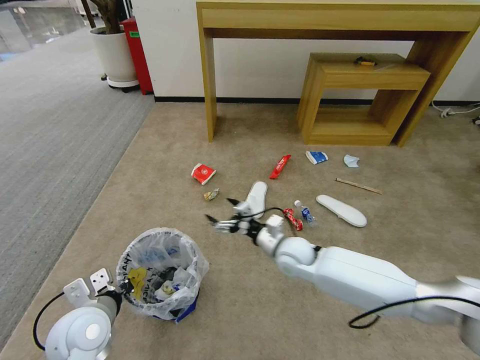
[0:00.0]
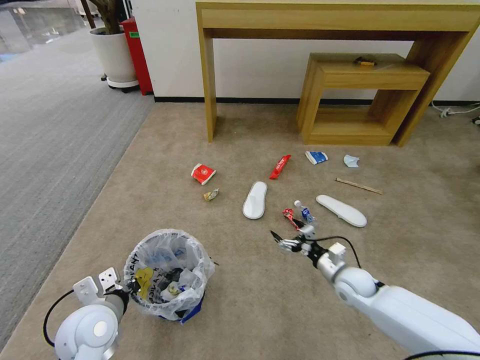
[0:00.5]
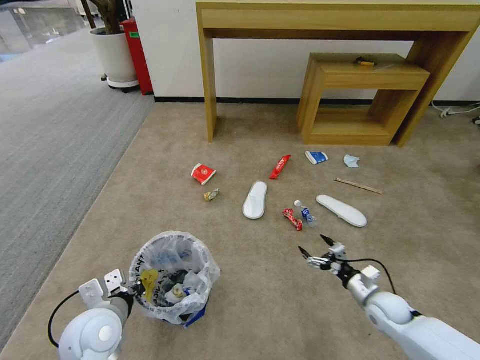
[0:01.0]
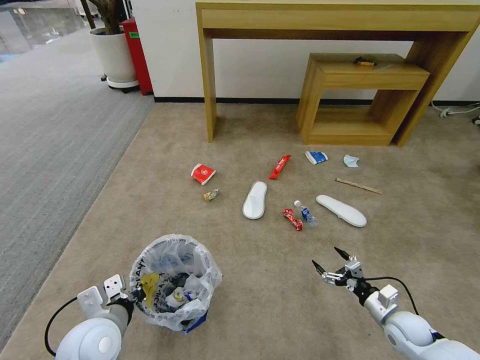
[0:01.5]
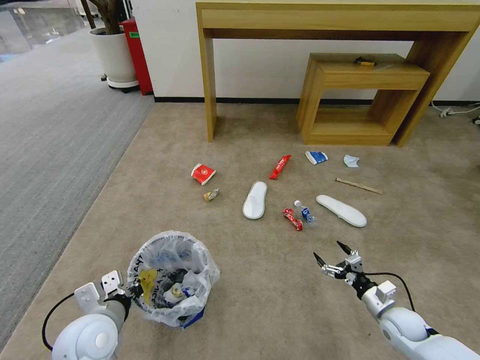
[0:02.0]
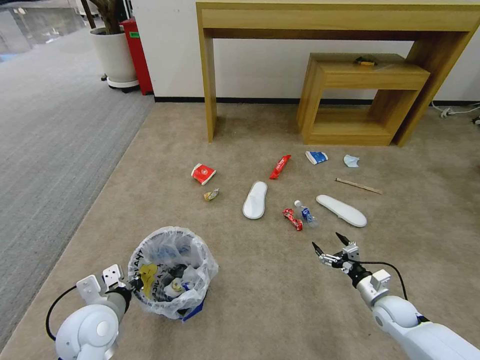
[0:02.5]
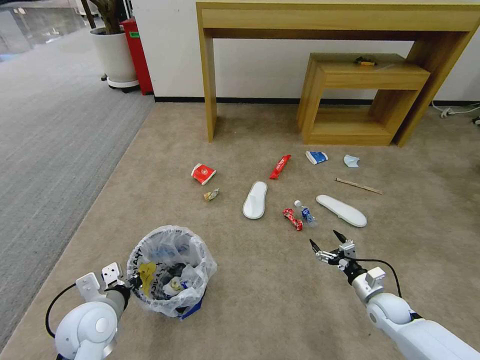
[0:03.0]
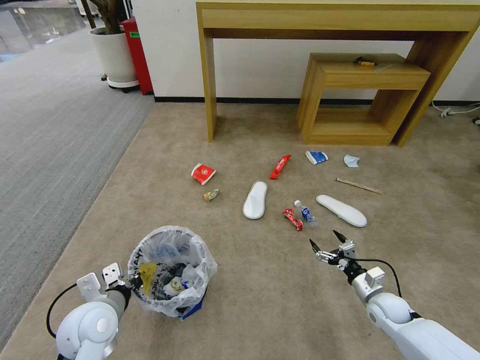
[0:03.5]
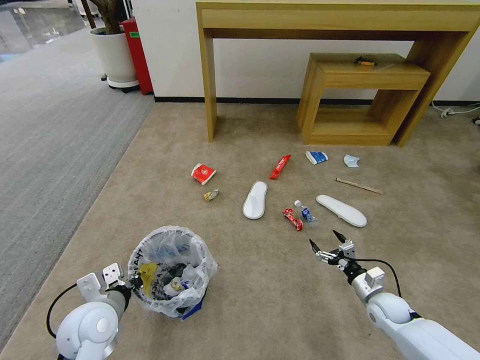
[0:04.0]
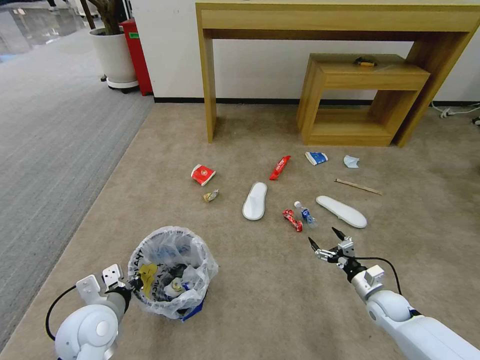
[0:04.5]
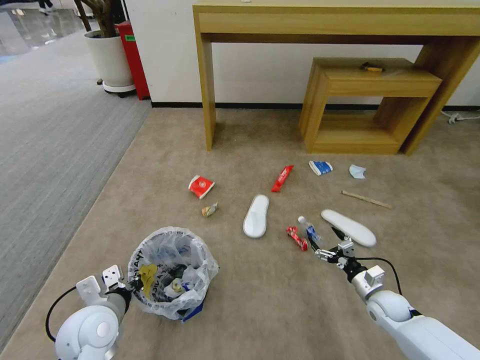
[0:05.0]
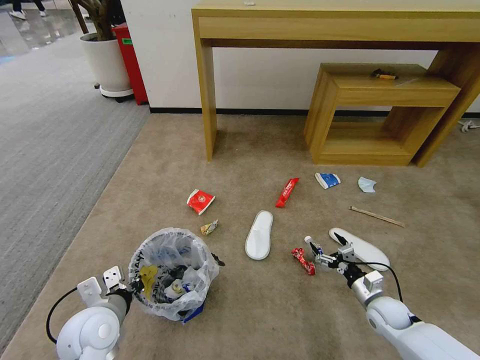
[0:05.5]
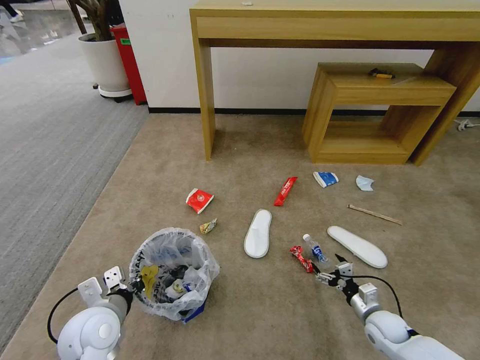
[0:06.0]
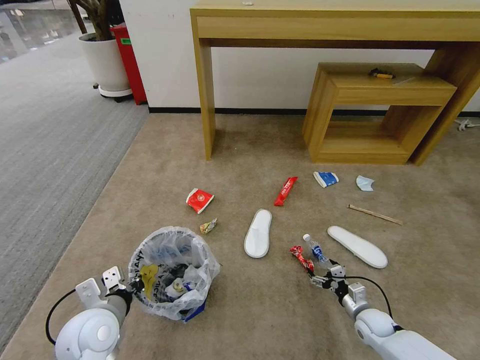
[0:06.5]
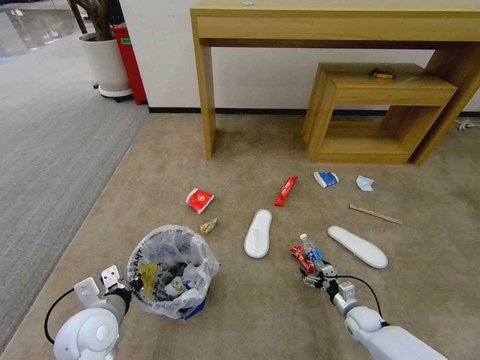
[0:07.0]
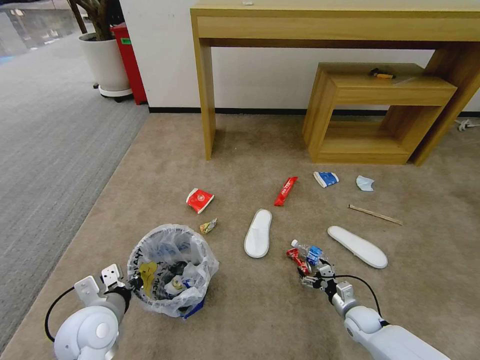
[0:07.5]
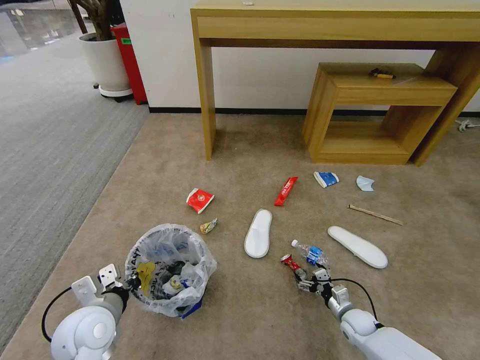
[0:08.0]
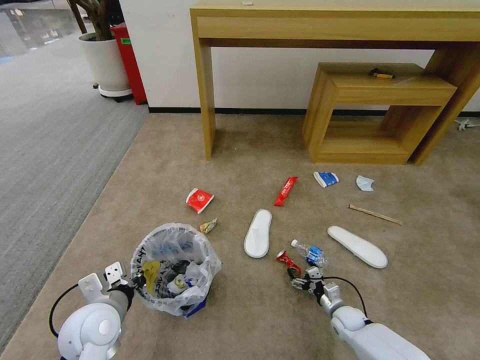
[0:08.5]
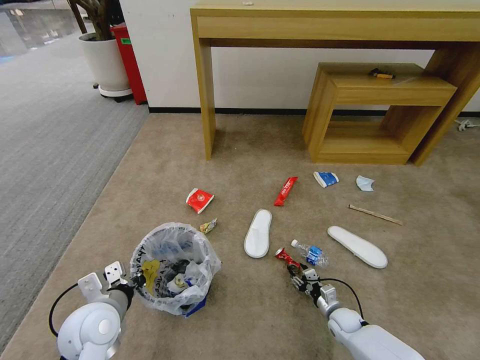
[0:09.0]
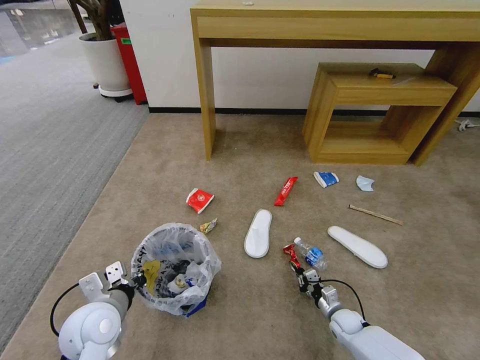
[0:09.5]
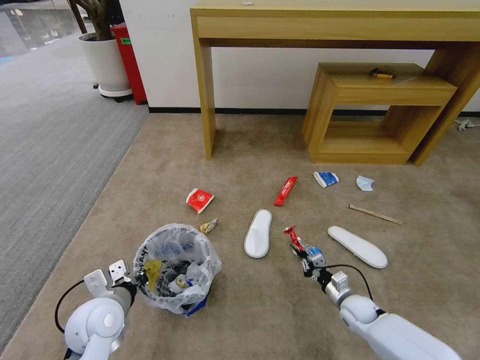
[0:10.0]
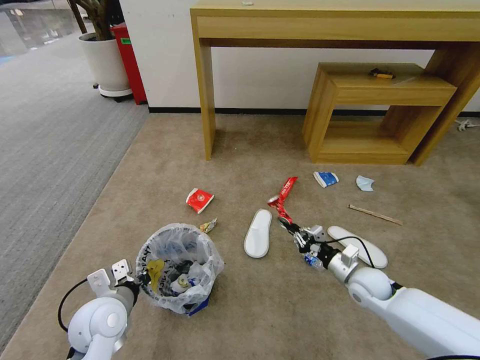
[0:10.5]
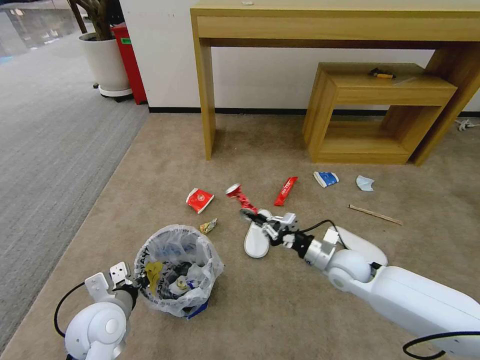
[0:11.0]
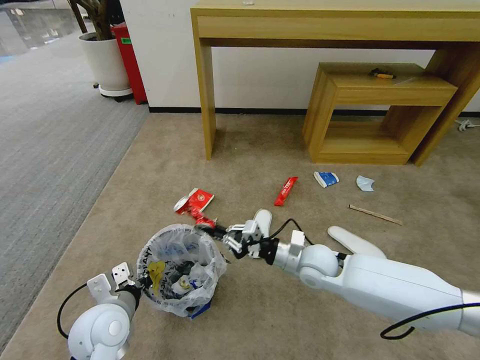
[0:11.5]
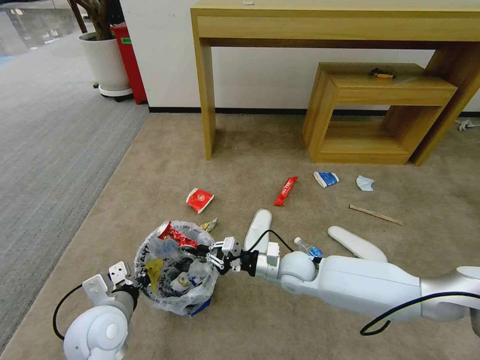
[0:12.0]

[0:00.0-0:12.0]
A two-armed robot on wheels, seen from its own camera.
Task of the whole recording: Pick up the trash bin and place the garbage on the floor into it.
0:00.0 to 0:02.0: The right gripper moves to the right, backward and downward, roughly 35 cm.
0:02.0 to 0:04.0: The grippers move only a little.
0:06.0 to 0:08.0: The right gripper travels downward by about 5 cm.
0:08.0 to 0:10.0: The right gripper closes its fingers.
0:10.0 to 0:12.0: The right gripper heads to the left and upward, covering about 25 cm.

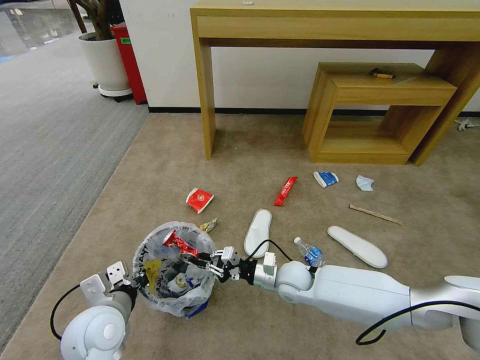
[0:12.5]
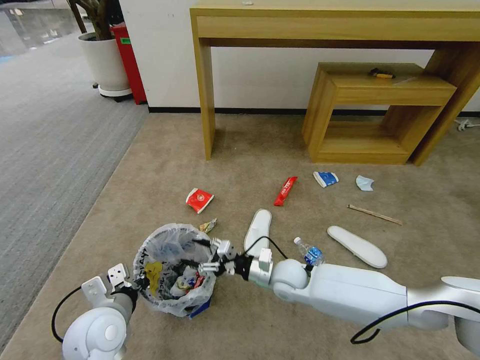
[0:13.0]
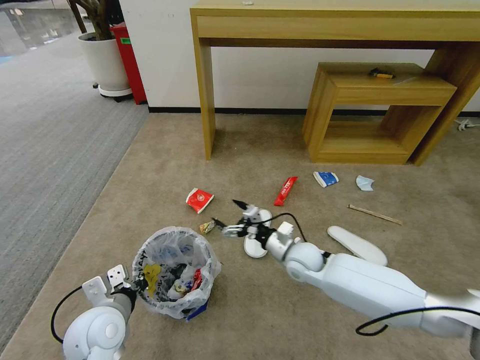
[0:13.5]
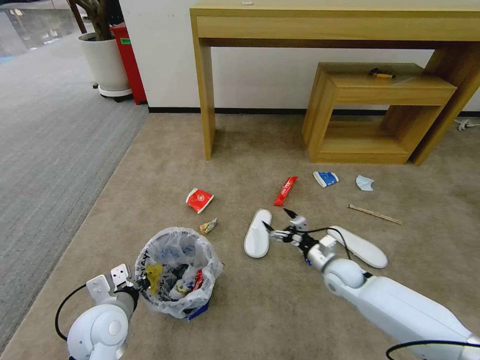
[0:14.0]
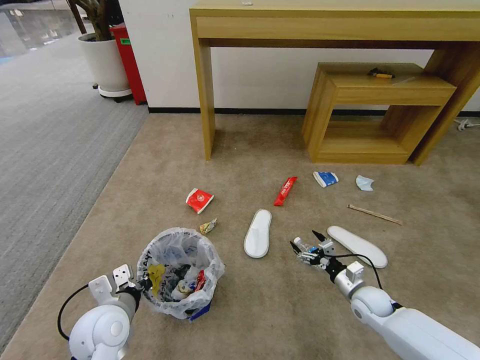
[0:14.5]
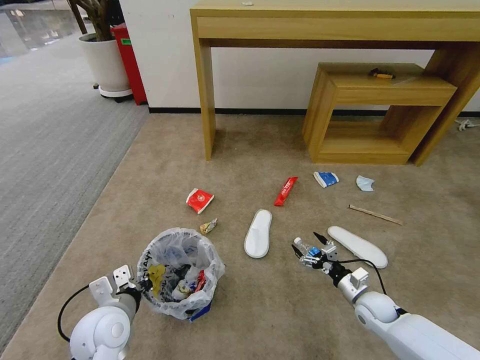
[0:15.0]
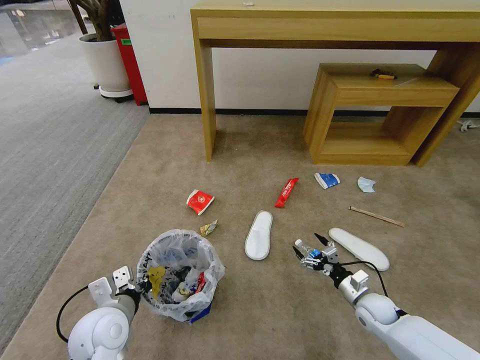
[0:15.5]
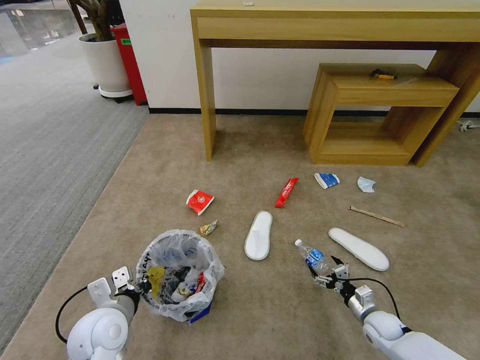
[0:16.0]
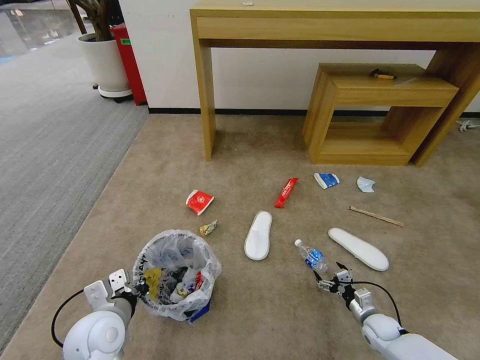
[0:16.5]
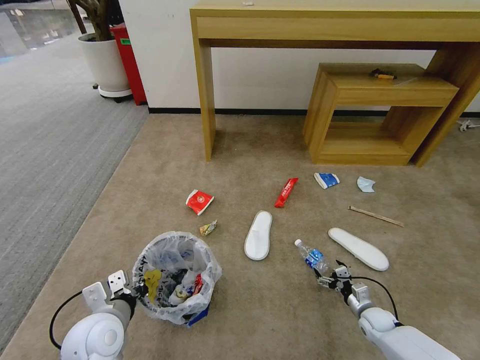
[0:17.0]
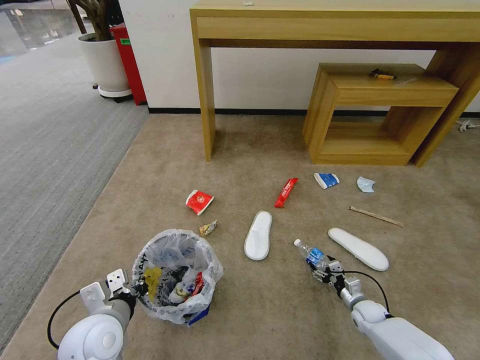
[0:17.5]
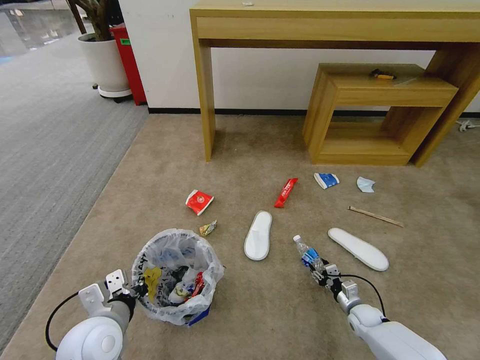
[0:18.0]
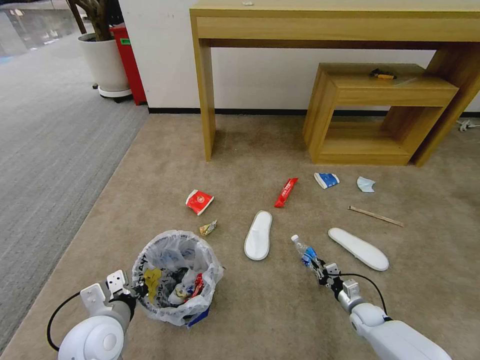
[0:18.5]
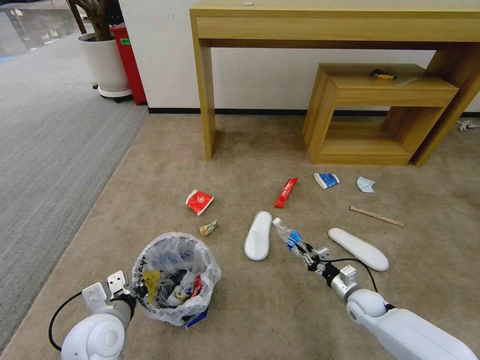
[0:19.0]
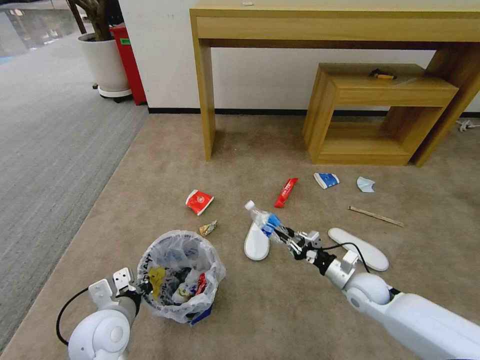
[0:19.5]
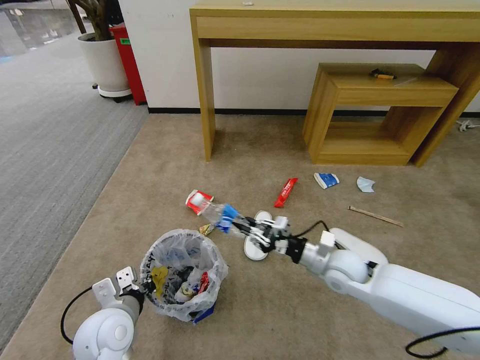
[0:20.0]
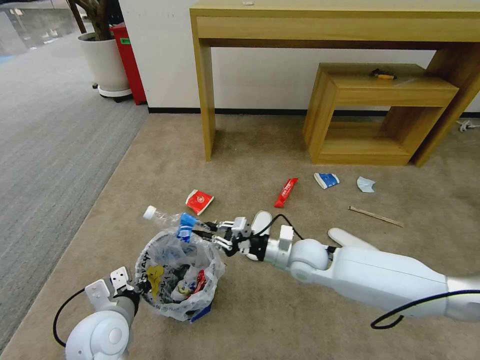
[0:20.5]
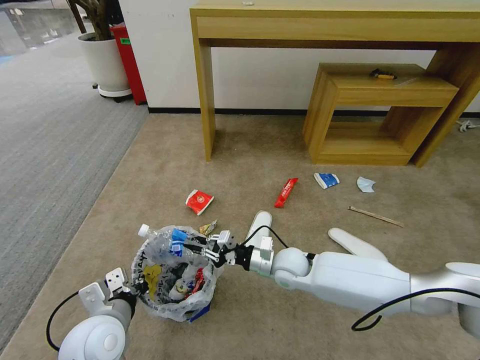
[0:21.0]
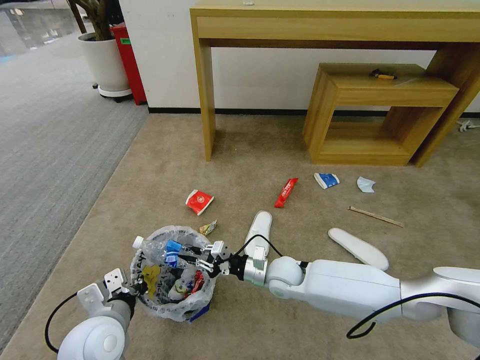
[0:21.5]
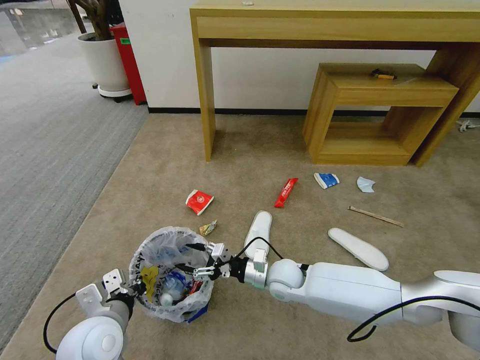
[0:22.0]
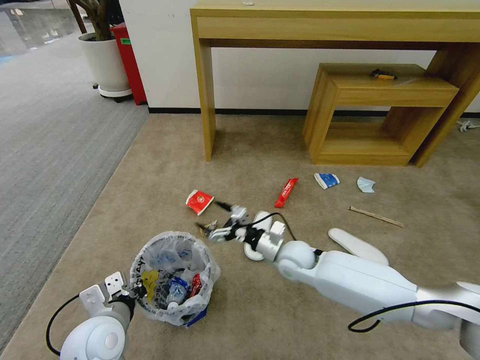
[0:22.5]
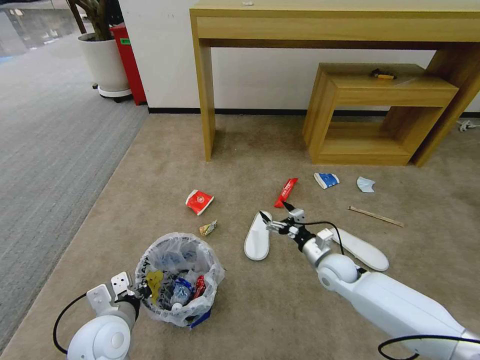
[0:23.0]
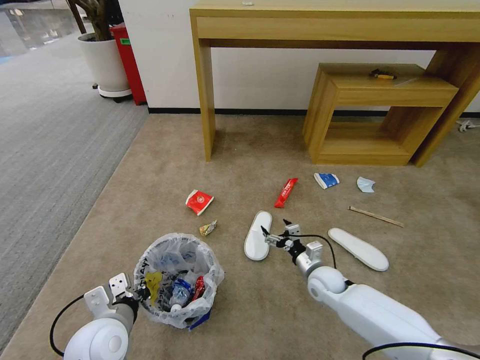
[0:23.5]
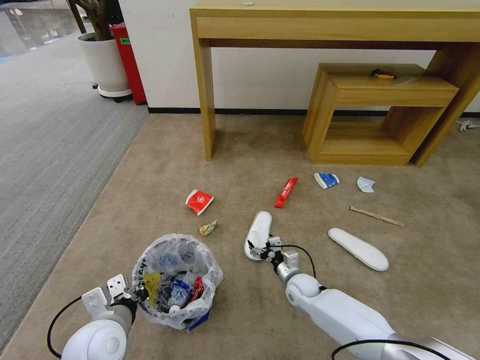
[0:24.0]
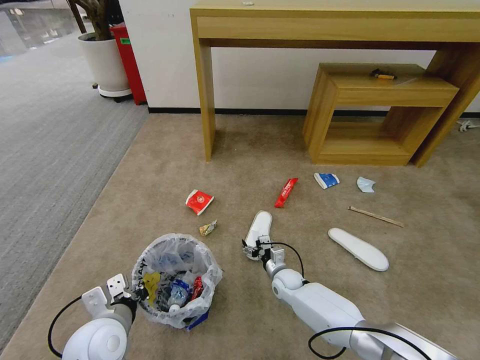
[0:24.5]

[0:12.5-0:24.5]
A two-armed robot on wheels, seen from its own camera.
Task of the whole recording: Pick up the trash bin and place the garbage on the floor into it.
0:12.5 to 0:14.5: The right gripper moves to the right, some 20 cm, and opens up.
0:14.5 to 0:16.5: The right gripper travels downward by some 10 cm.
0:16.5 to 0:18.5: The right gripper closes up.
0:18.5 to 0:20.5: The right gripper travels upward and to the left by about 35 cm.
0:20.5 to 0:22.5: The right gripper opens its fingers.
0:22.5 to 0:24.5: The right gripper is displaced downward by approximately 15 cm.

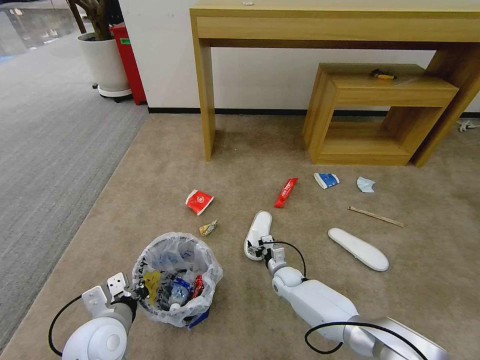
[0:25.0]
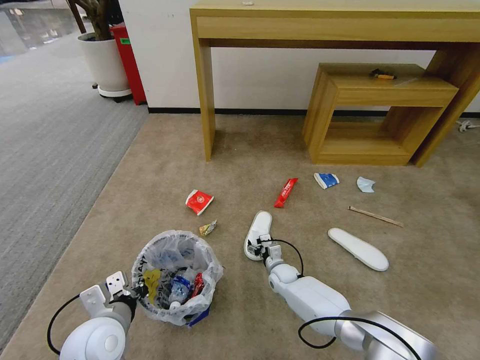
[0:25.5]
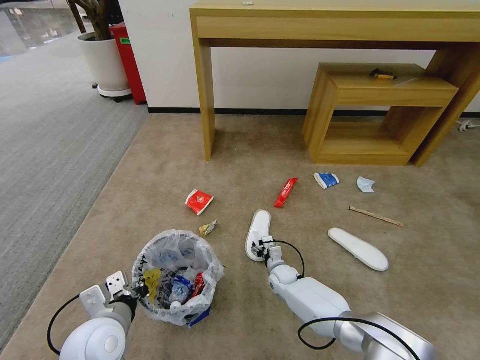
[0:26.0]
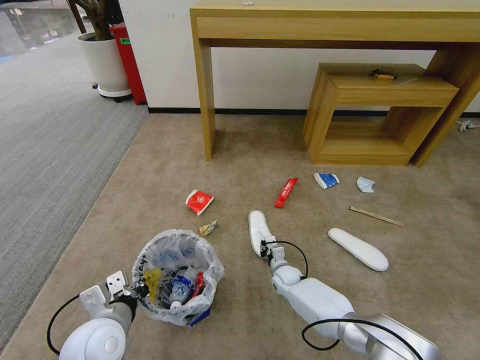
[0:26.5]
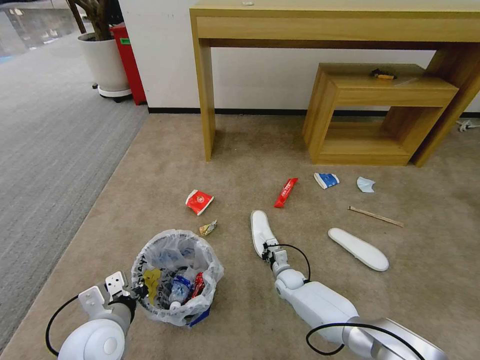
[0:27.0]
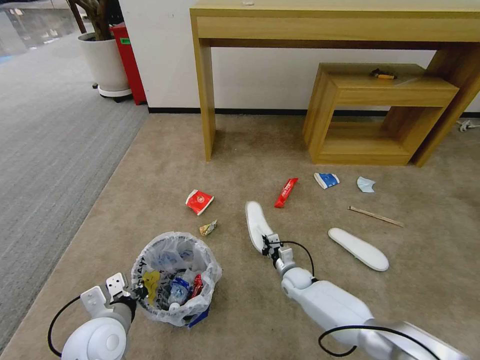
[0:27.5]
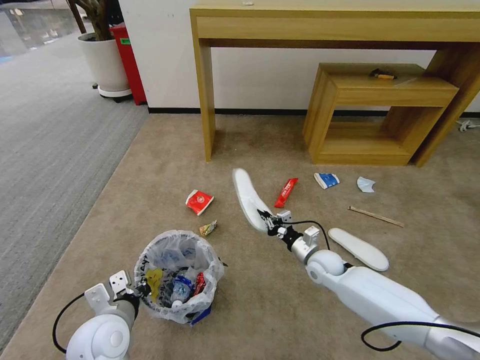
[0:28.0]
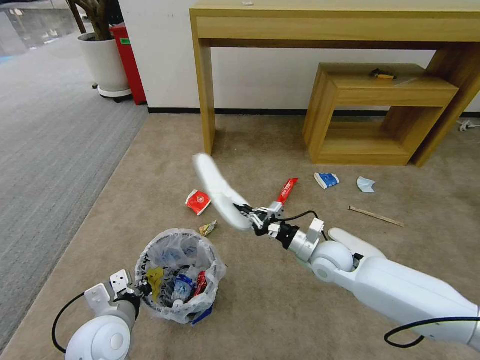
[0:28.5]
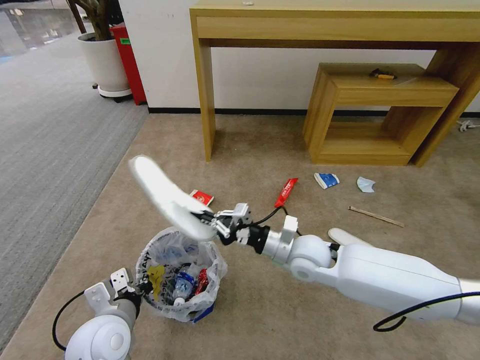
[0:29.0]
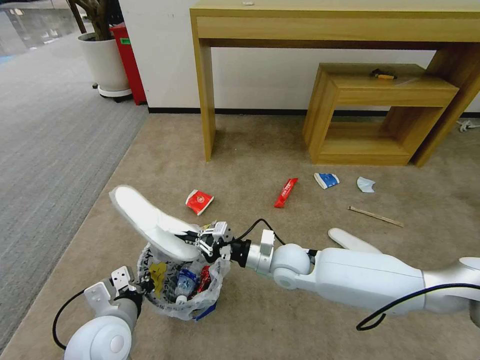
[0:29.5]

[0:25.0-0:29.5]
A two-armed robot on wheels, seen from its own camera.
Task of the whole recording: Pick up the trash bin and place the garbage on the floor into it.
0:25.0 to 0:27.0: The right gripper closes.
0:27.0 to 0:29.5: The right gripper shifts about 25 cm upward.
